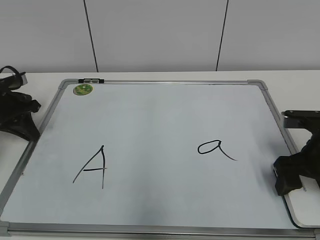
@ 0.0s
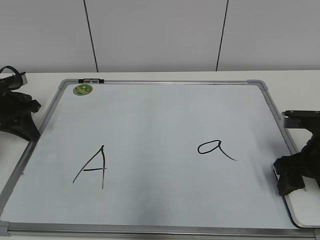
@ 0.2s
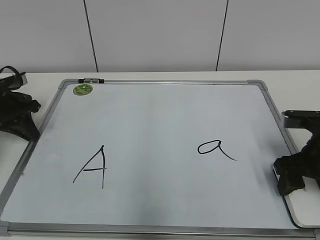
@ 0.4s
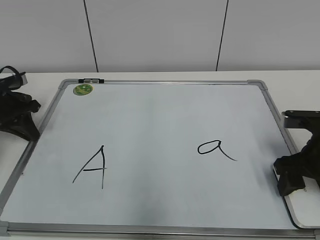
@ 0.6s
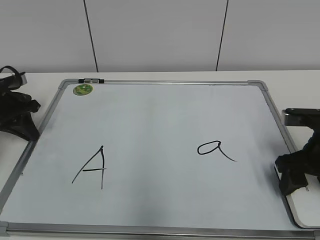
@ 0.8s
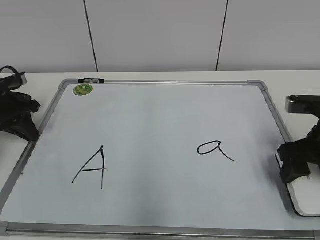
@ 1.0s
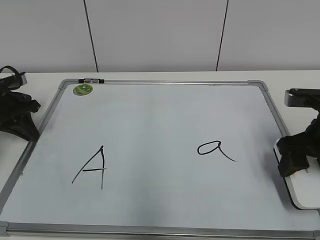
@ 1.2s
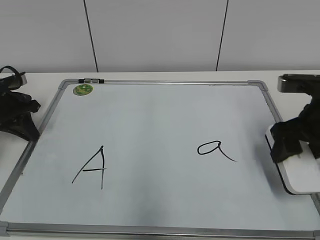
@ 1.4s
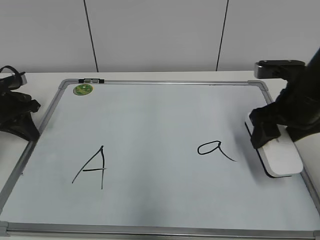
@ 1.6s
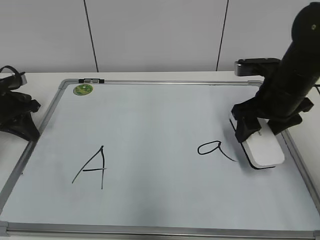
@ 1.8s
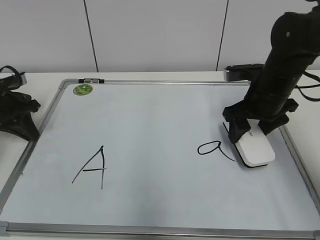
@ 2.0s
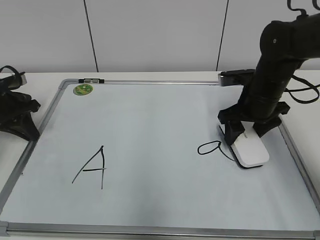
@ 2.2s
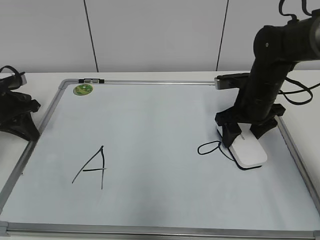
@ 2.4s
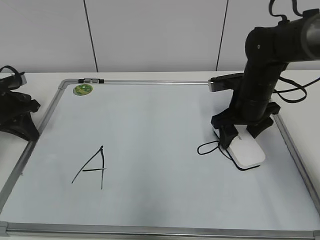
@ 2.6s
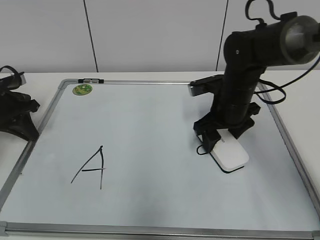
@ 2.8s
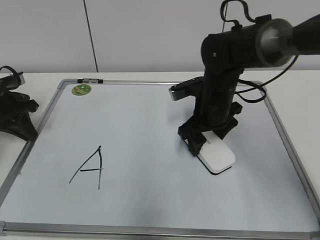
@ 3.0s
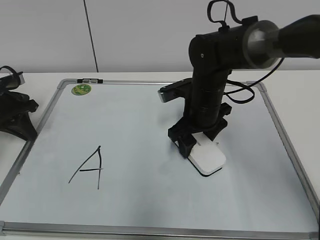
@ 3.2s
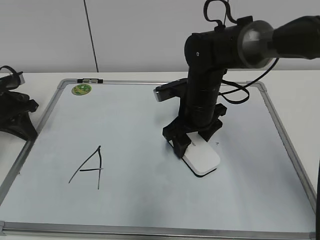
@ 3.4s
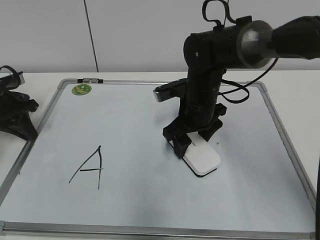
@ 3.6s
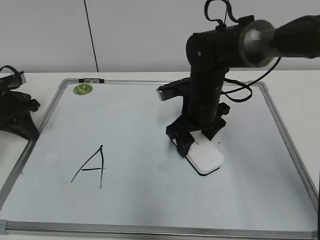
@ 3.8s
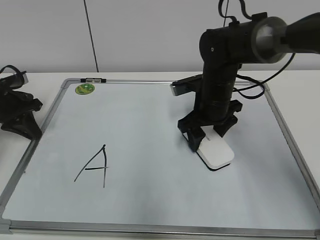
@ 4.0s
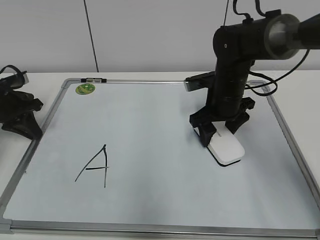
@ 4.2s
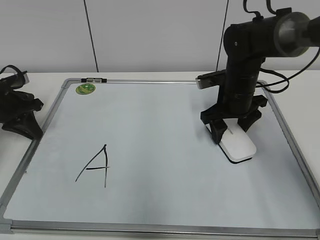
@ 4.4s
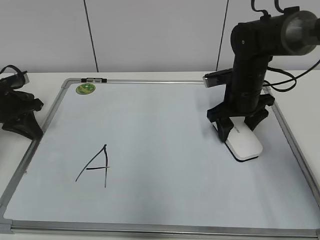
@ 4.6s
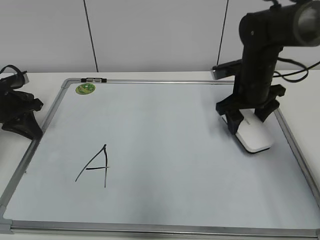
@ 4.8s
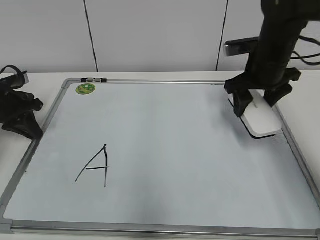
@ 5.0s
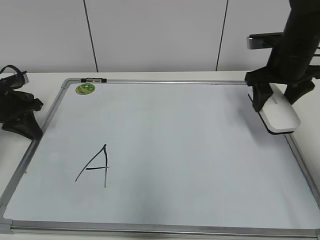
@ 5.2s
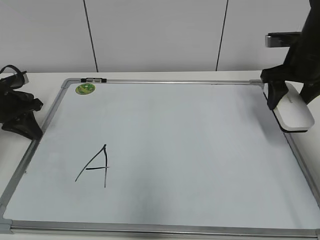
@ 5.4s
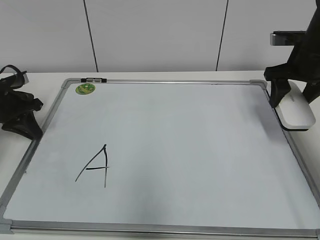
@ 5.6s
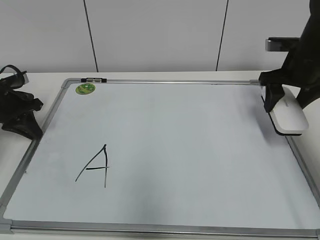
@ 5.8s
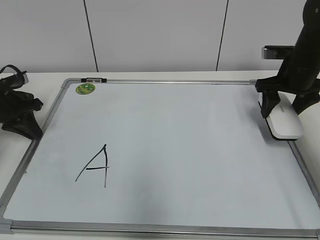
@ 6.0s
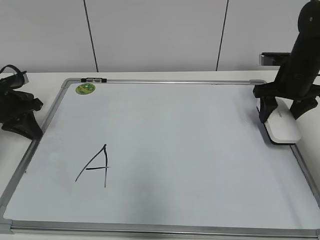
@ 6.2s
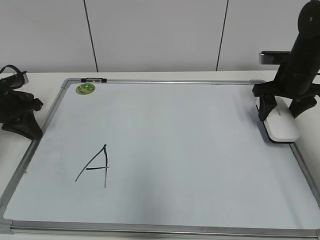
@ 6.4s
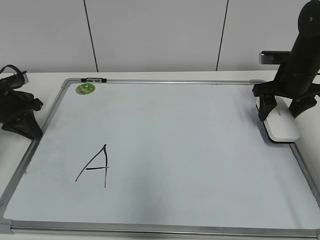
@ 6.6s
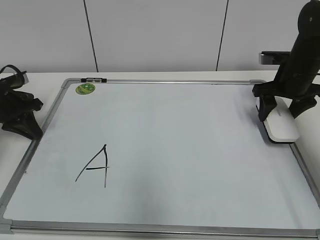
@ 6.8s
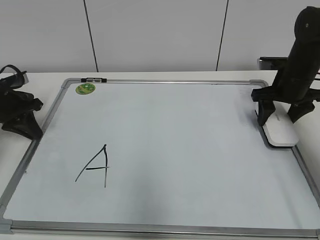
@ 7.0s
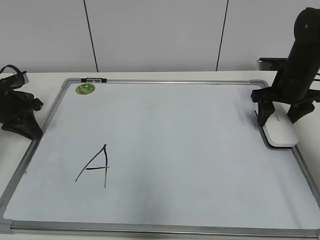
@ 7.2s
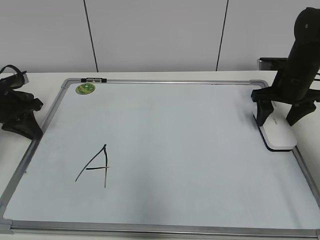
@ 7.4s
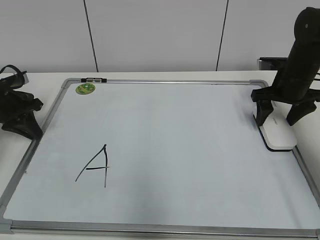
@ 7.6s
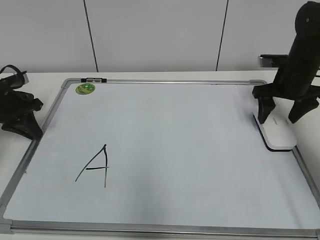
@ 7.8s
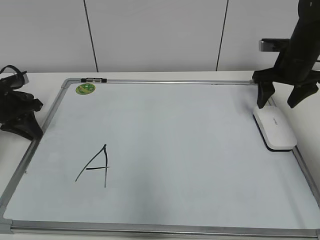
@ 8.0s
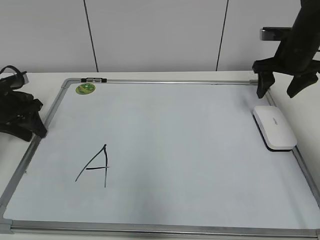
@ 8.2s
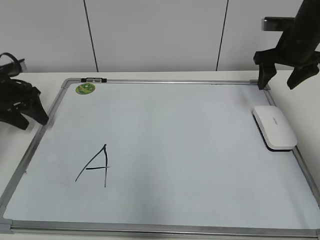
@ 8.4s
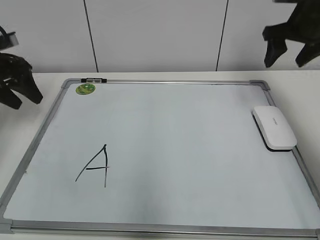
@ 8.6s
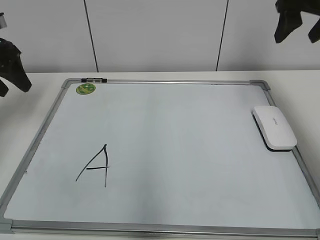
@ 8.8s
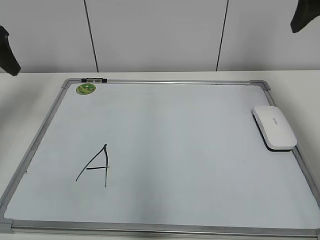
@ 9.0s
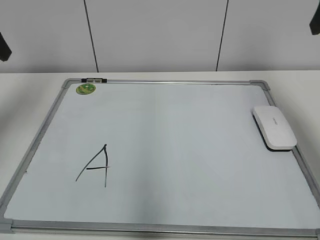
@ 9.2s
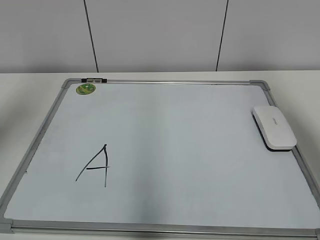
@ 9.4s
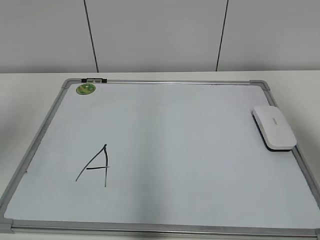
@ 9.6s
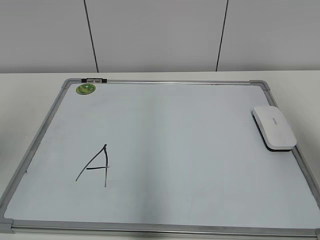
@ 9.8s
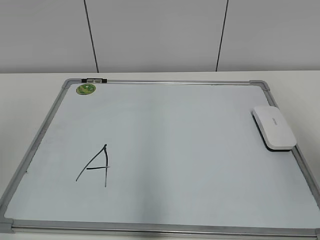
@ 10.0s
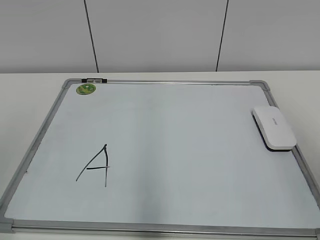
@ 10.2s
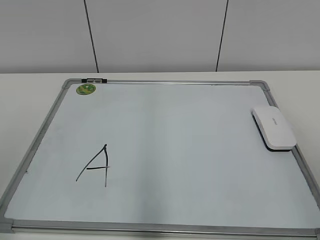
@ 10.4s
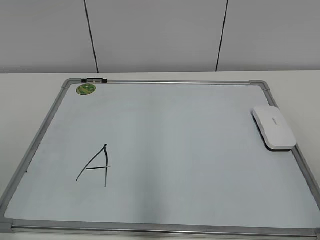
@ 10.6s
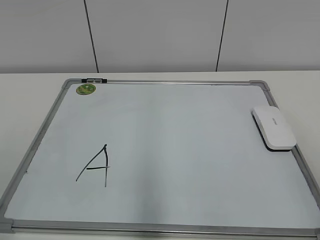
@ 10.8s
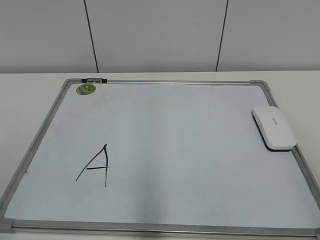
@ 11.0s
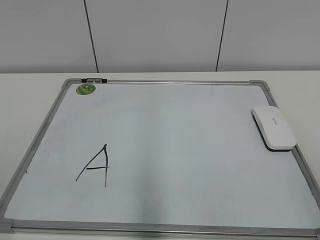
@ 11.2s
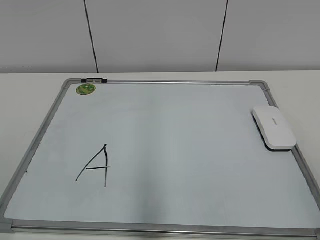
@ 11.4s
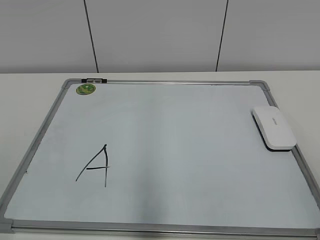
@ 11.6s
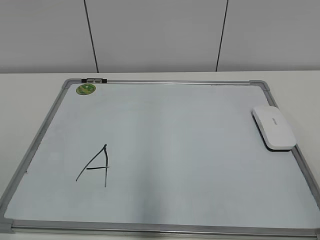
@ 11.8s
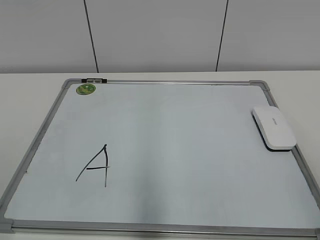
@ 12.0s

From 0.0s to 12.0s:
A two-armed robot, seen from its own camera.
Task of the whole recording: pick up the eraser on the blackboard and erase the letter "a".
Step, from 0.6s to 4.2s: Erase the letter a with your right hand.
Step, from 4.4s to 7.2s: Put down the eraser with your right hand.
From 0.0s to 1.6s: The right gripper goes approximately 5 cm upward, and closes.
From 1.6s to 3.0s: The right gripper shifts some 15 cm to the left, forward and downward.
From 3.0s to 4.4s: The right gripper travels to the right by approximately 5 cm.
From 4.4s to 6.0s: The right gripper is displaced to the right by approximately 10 cm.
From 6.0s to 7.6s: The right gripper opens up.
From 7.6s to 9.0s: The two grippers go roughly 20 cm upward. The left gripper opens up.
From 9.0s to 10.4s: Both grippers travel together backward, roughly 30 cm.

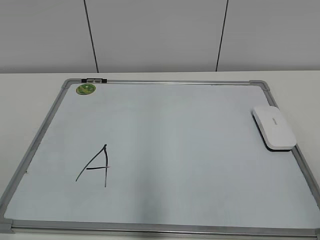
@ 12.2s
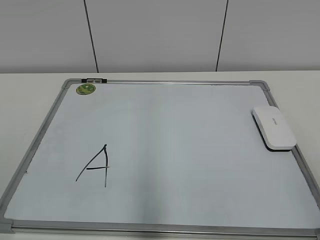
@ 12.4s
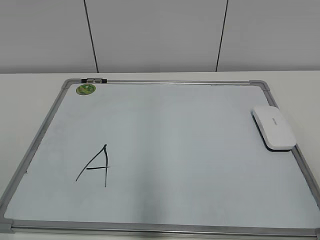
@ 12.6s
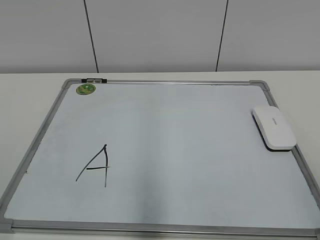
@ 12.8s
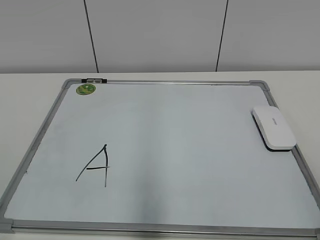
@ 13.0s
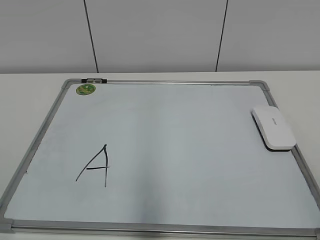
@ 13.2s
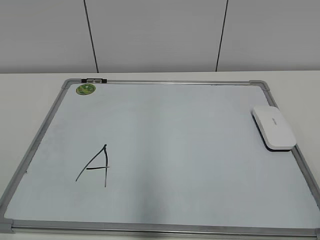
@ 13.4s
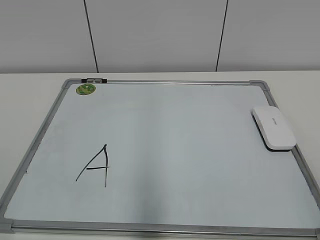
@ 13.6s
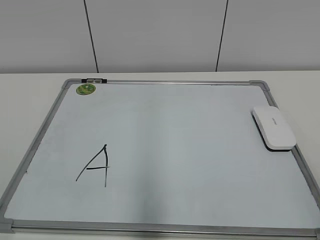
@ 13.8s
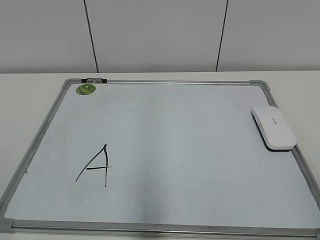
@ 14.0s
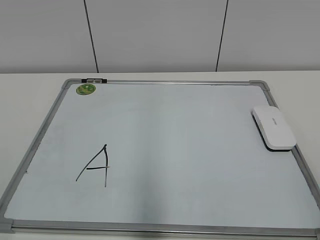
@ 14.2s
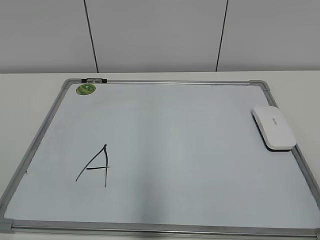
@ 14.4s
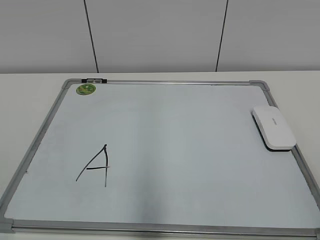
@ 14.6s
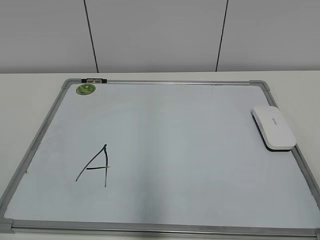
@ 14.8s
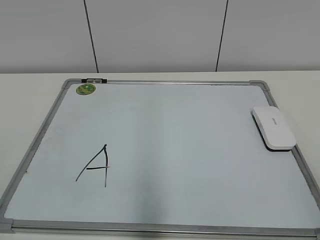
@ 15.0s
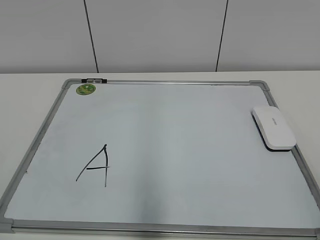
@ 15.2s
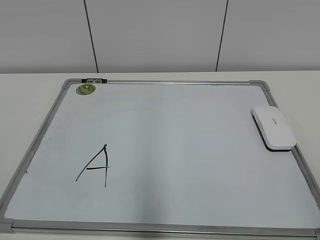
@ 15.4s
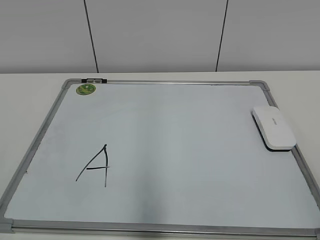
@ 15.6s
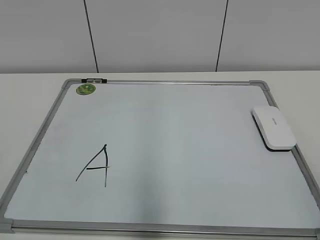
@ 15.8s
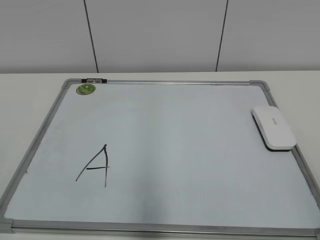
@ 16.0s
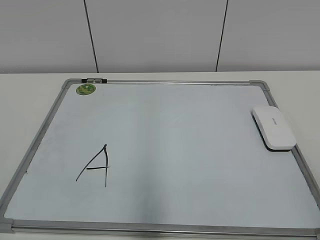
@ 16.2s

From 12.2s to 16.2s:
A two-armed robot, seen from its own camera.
Task of the whole recording: pick up the eraser on the blackboard and erase the letter "a".
From 14.8s to 16.2s: Both grippers stay about where they are.

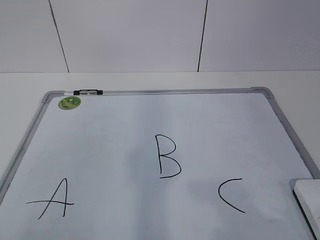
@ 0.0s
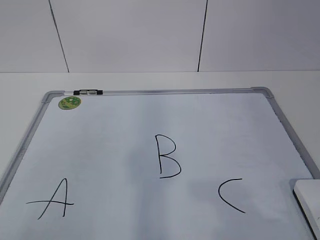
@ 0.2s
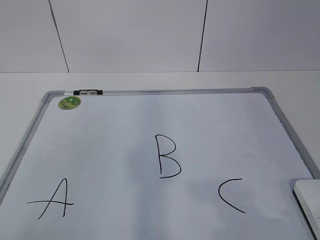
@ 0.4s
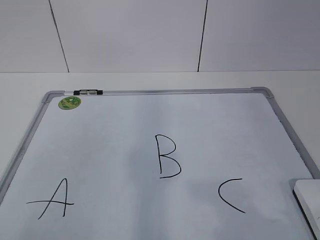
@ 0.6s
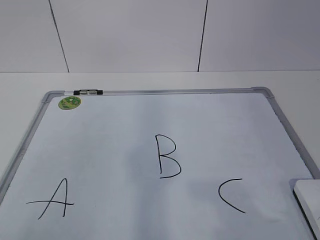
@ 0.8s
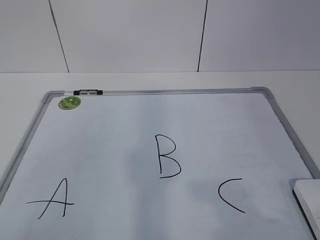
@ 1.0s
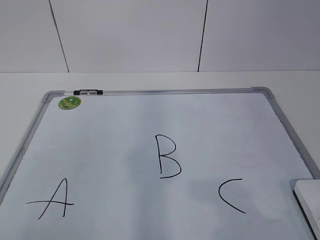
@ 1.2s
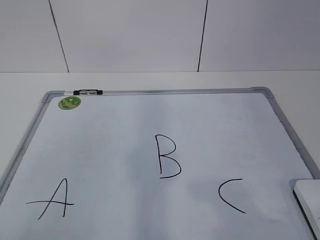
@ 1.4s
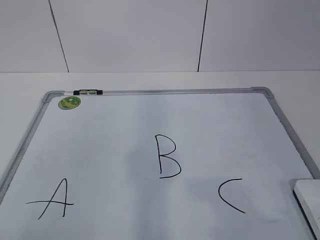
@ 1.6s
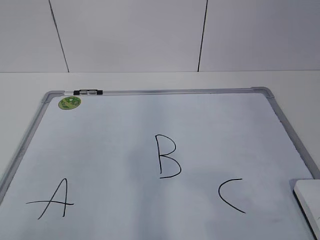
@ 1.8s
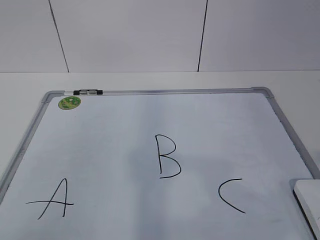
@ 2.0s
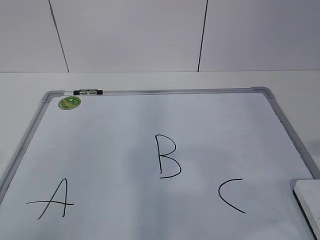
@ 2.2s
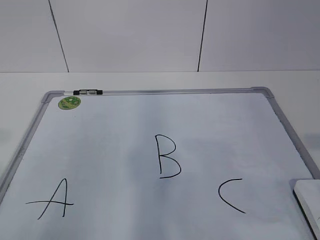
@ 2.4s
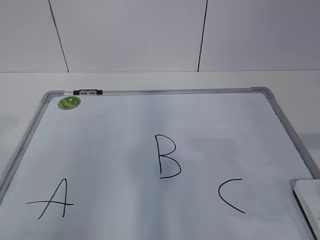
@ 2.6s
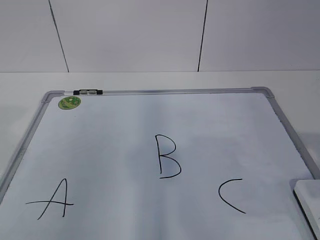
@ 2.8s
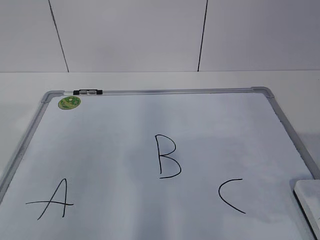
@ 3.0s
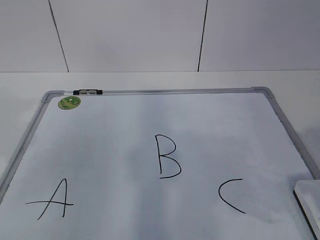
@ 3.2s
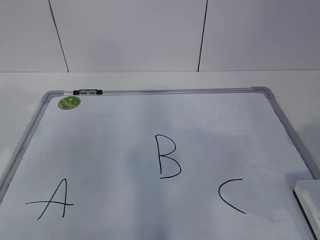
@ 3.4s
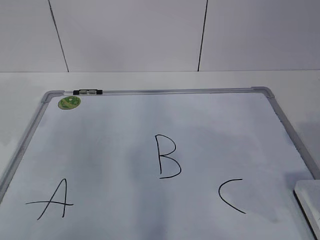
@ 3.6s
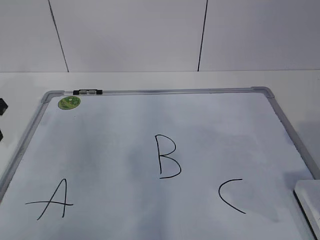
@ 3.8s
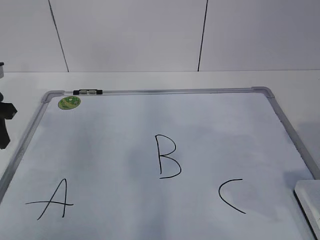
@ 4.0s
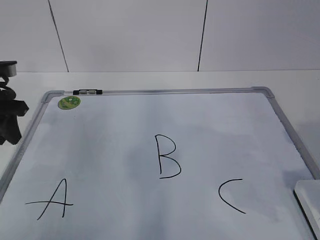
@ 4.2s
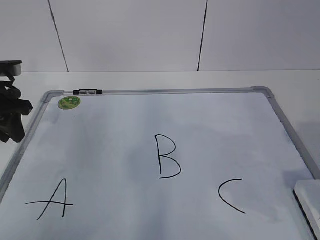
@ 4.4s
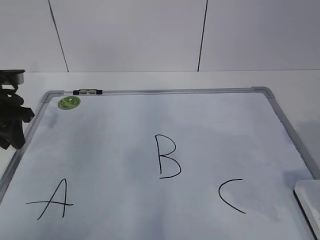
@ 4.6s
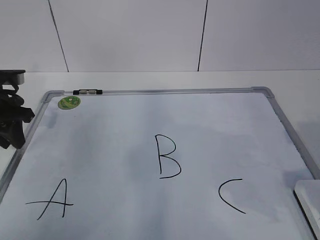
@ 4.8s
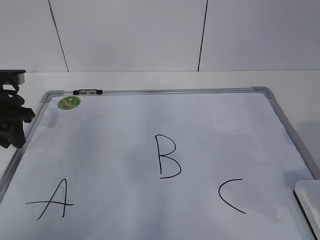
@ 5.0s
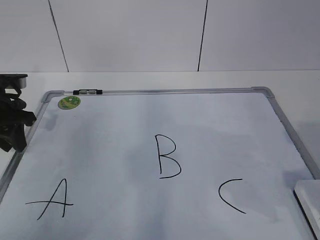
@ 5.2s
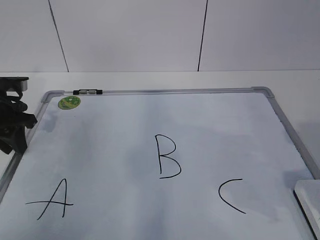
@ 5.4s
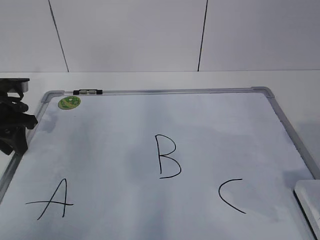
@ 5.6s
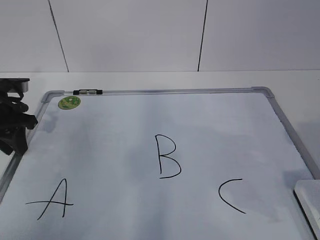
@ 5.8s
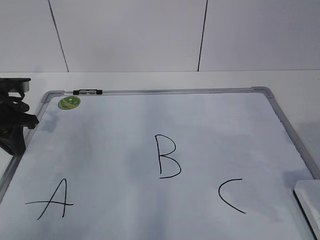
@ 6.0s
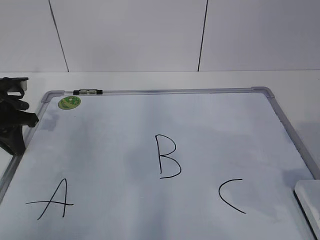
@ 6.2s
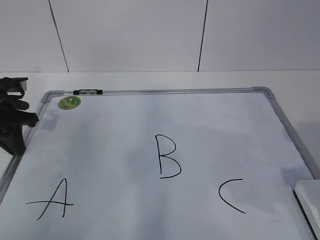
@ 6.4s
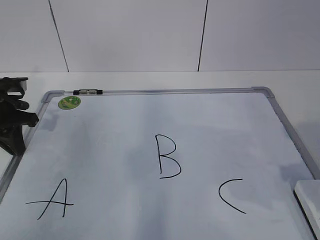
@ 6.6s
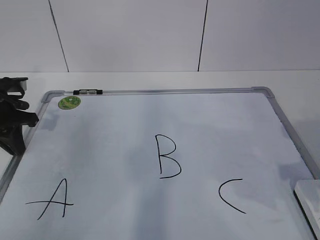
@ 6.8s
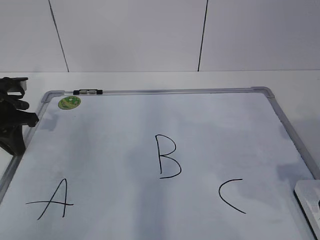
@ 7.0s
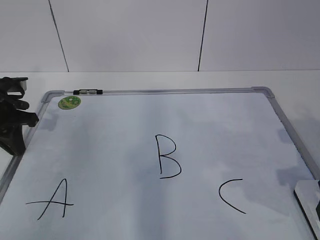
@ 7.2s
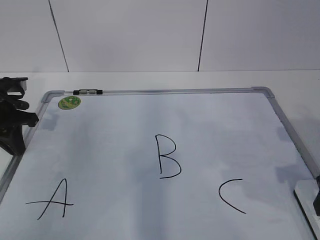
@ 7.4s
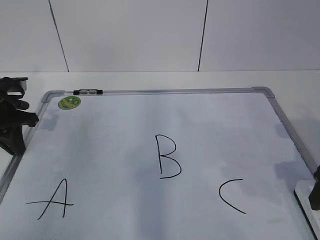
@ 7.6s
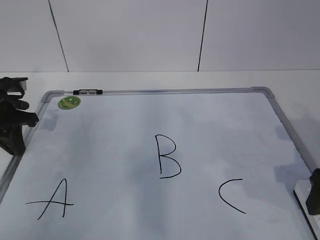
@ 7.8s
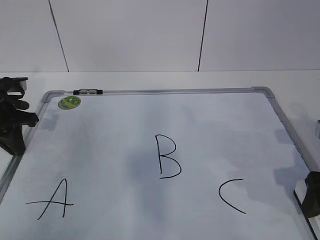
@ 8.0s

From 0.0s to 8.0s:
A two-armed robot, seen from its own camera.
Task of the whole recording: pick up the eraser on the blackboard and erase the letter "B".
Step, from 0.0s to 5.0s: Hold the drawing board steady with your left hand.
From 1.6s to 3.2s: The right gripper shifts about 15 cm forward.
From 3.2s to 4.8s: The left gripper moves forward and downward, approximately 20 cm.
From 4.8s to 6.4s: The left gripper closes its fingers.
From 6.4s to 8.0s: The right gripper heads downward and forward, covering some 10 cm, and opens up.
